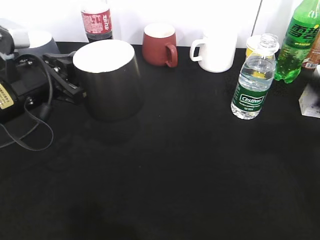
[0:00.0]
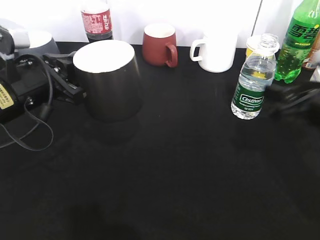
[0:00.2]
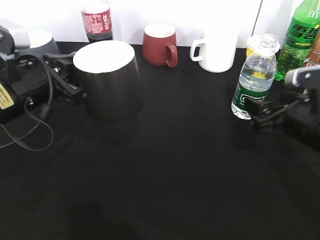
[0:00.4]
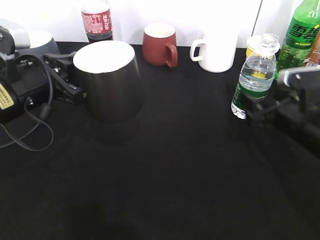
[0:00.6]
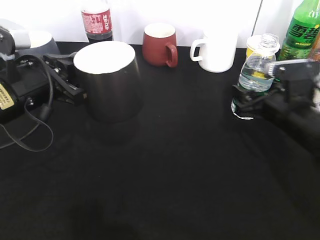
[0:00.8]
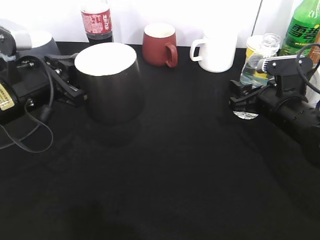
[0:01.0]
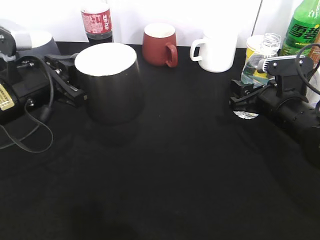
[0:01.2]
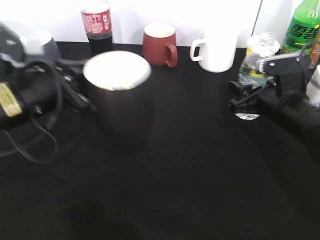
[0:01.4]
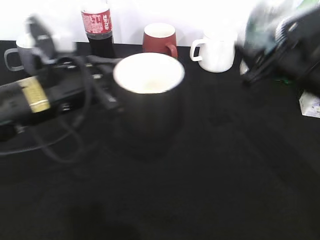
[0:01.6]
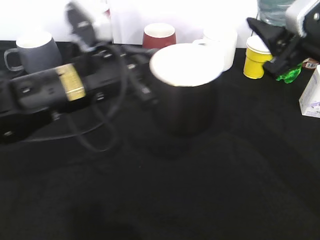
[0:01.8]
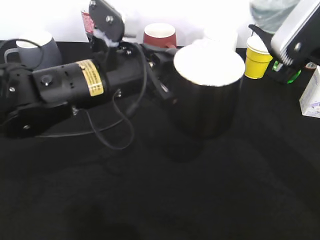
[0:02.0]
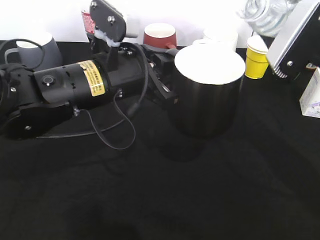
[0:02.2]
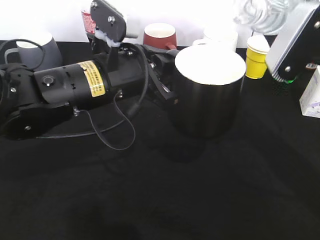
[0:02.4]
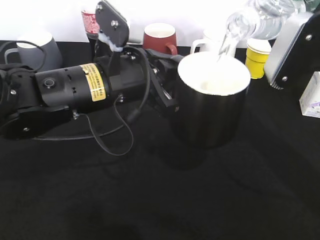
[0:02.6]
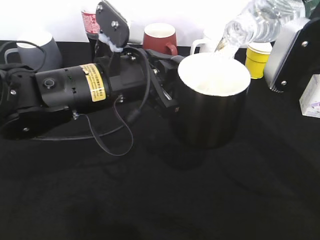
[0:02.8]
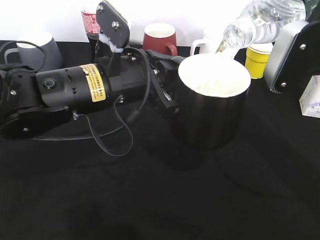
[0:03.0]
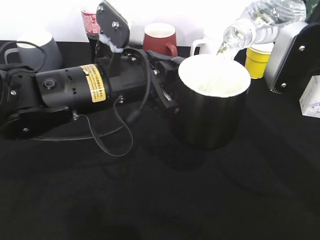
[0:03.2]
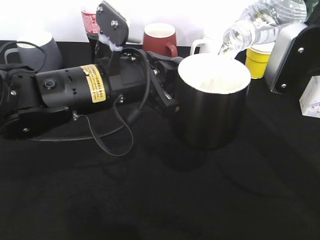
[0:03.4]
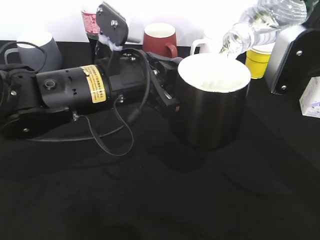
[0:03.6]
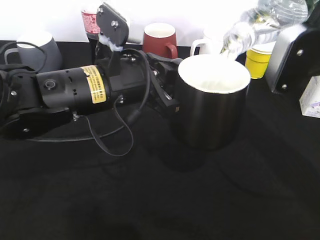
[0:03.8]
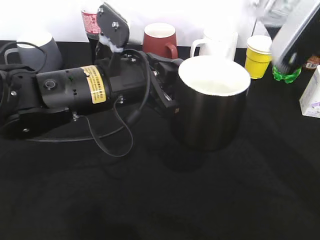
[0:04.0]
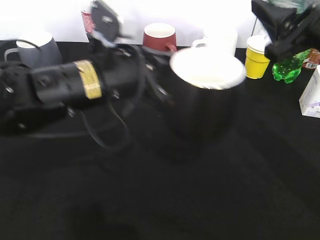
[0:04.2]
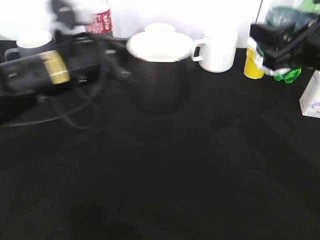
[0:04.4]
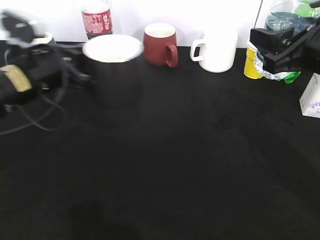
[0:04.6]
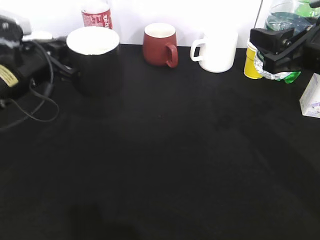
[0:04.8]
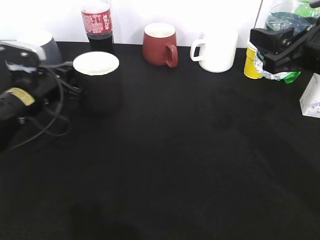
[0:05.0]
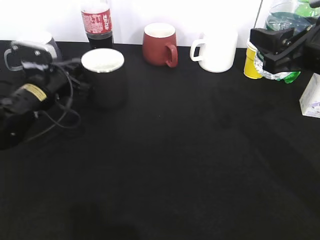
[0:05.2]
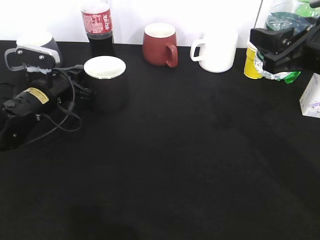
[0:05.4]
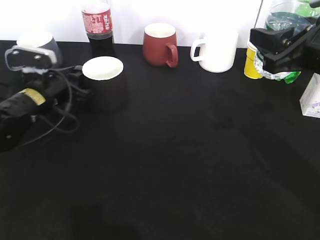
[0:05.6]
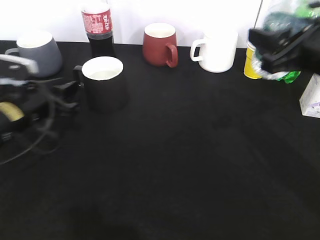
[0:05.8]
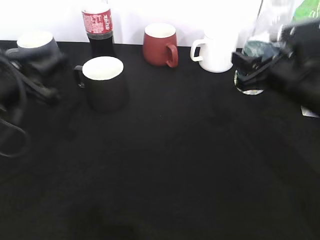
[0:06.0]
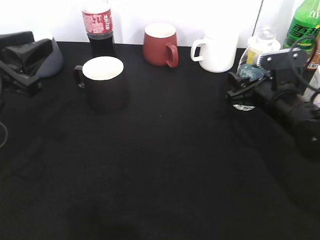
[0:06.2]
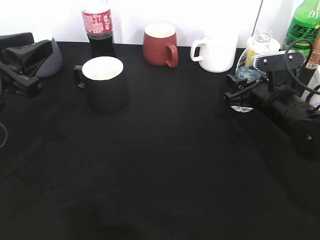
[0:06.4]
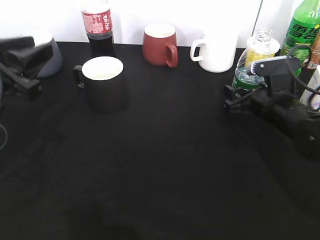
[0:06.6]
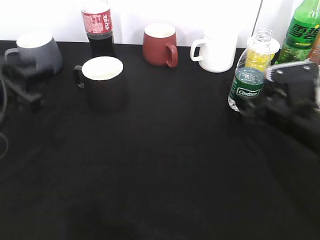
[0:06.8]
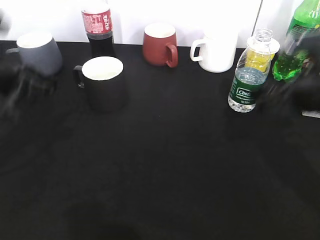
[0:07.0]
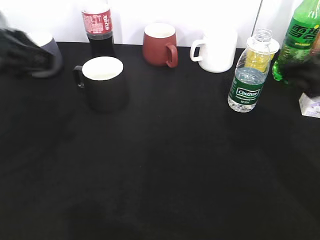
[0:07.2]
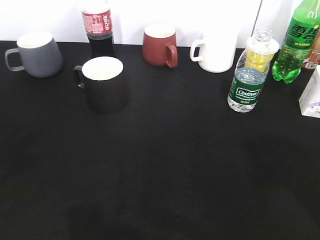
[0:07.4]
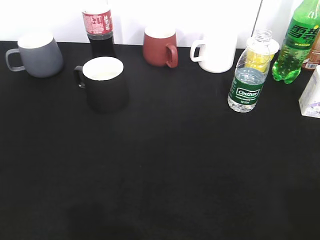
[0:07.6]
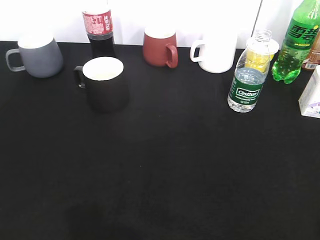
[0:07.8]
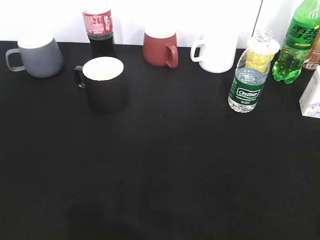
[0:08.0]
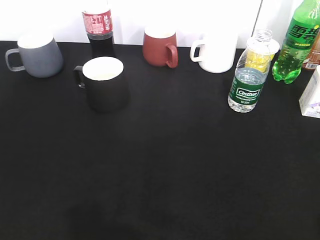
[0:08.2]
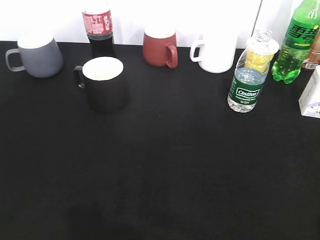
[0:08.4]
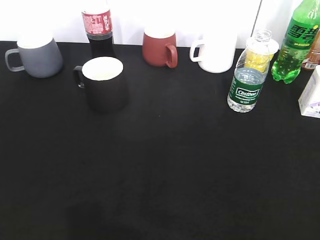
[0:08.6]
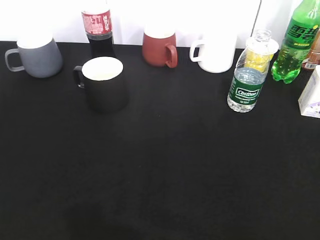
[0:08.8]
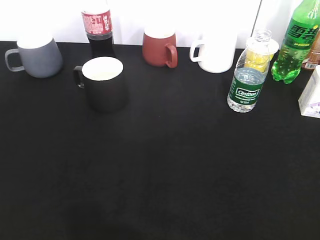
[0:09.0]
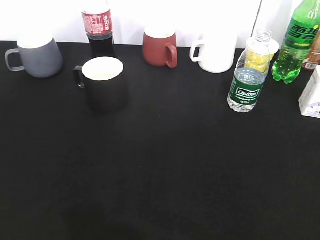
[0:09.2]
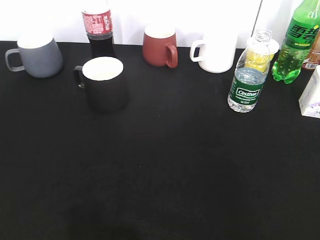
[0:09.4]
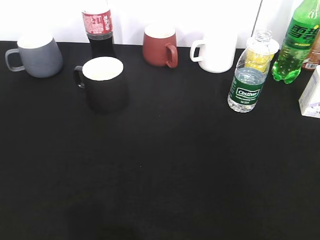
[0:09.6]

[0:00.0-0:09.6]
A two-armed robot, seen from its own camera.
Step, 0:00.0 to 0:01.2: Grasp the bottle with water with right gripper.
Step, 0:01.4 to 0:04.0: Pour the water from bottle to cup with right gripper.
Step, 0:04.2 to 0:05.6: Place the black cup on the table with left gripper.
Step, 0:05.8 to 0:06.8: Place the water bottle on the table with right gripper.
0:00.0 to 0:01.6: The left gripper travels to the right by approximately 5 cm, while the right gripper moves forward and to the left, some 10 cm, travels downward and back again, about 10 cm each way, and closes its fingers.
0:01.6 to 0:03.2: The left gripper shifts approximately 5 cm to the right, while the right gripper is displaced upward by roughly 5 cm.
0:03.2 to 0:04.8: The left gripper shifts some 15 cm to the left and forward.
0:04.8 to 0:06.4: The left gripper heads backward, covering approximately 10 cm, and opens. The right gripper shifts roughly 15 cm downward and forward.
0:06.4 to 0:08.0: The left gripper heads backward, covering some 20 cm; the right gripper is displaced backward and upward by roughly 35 cm, and opens, then closes again.
